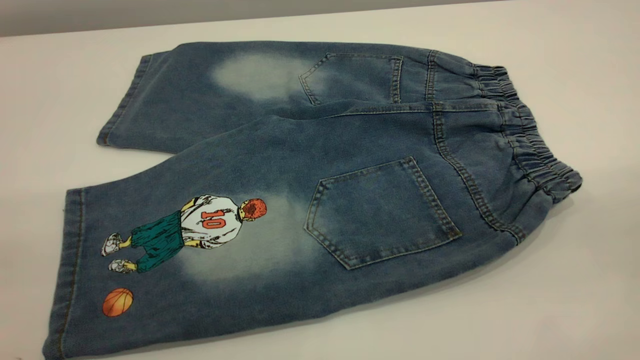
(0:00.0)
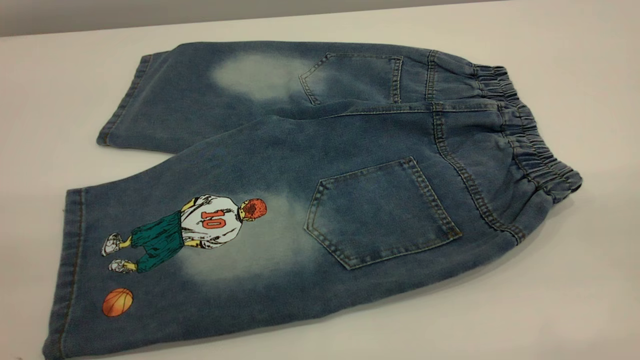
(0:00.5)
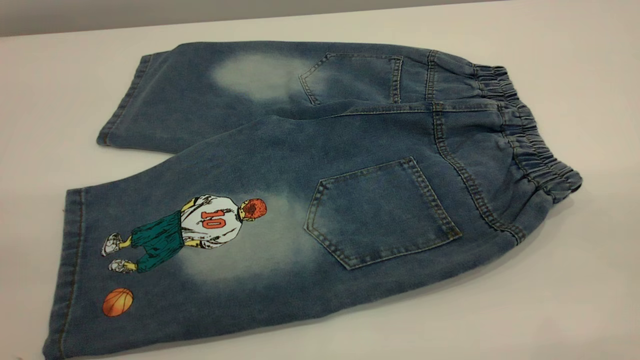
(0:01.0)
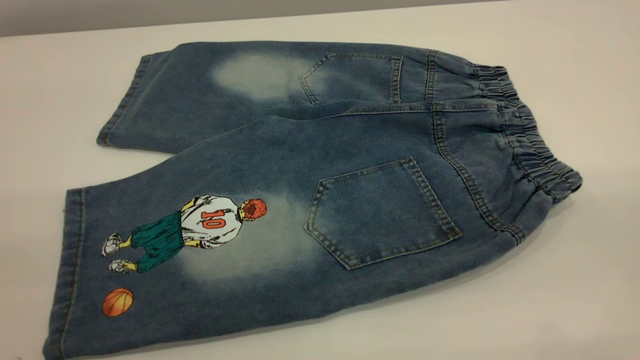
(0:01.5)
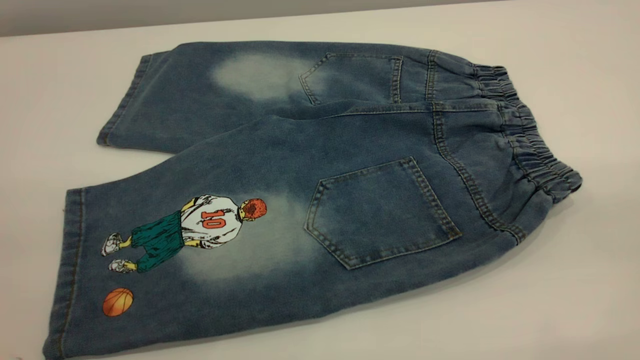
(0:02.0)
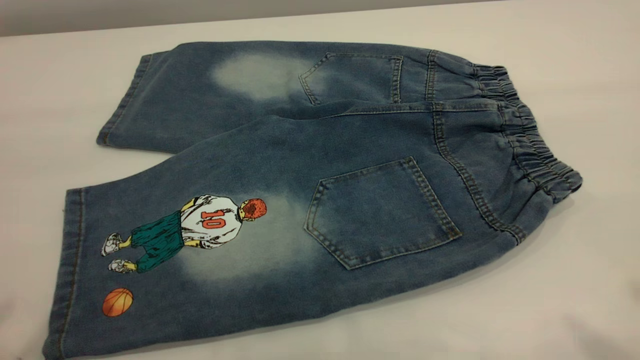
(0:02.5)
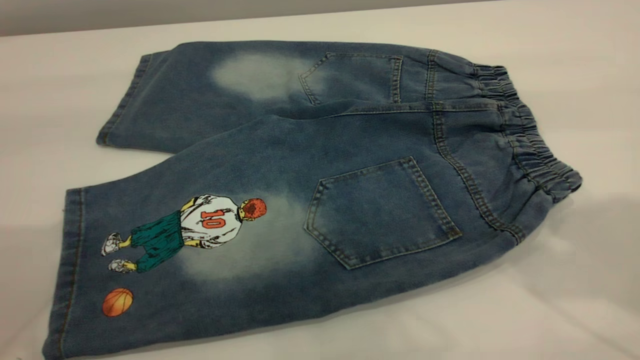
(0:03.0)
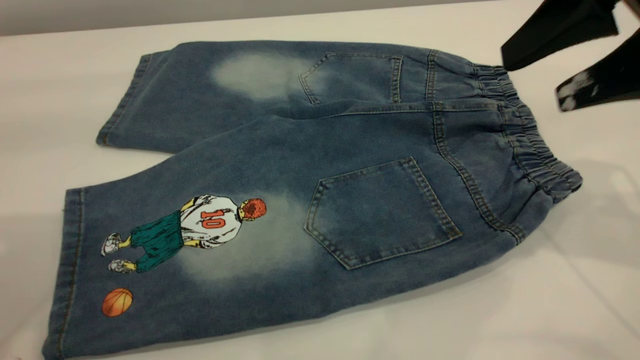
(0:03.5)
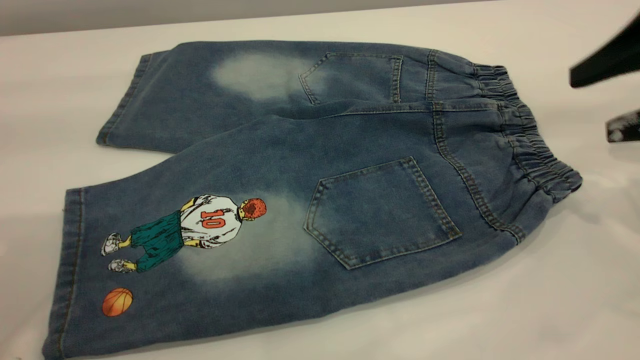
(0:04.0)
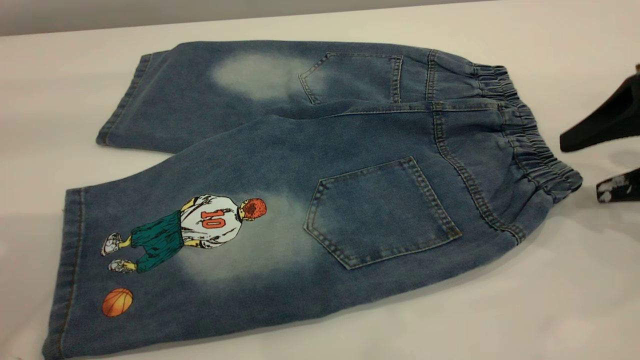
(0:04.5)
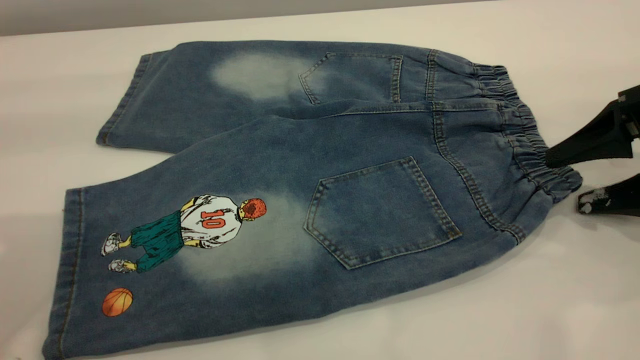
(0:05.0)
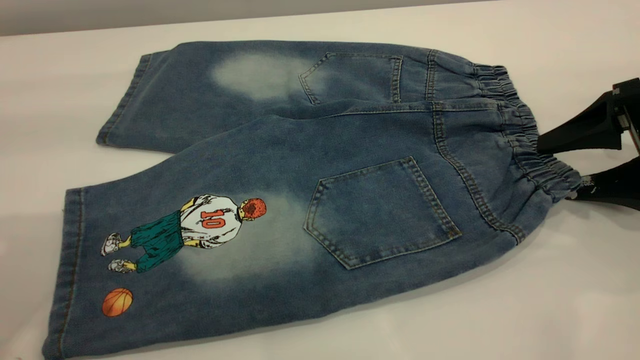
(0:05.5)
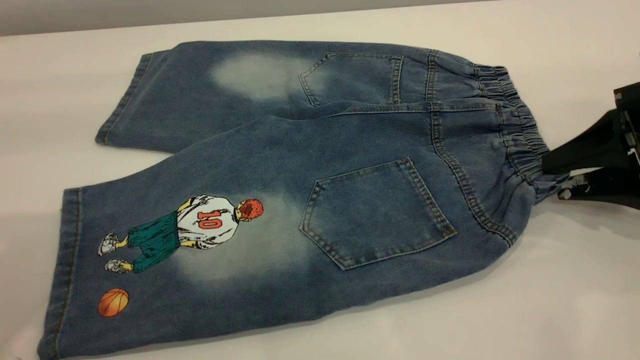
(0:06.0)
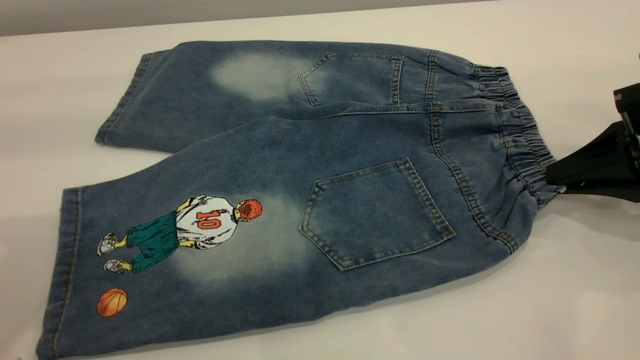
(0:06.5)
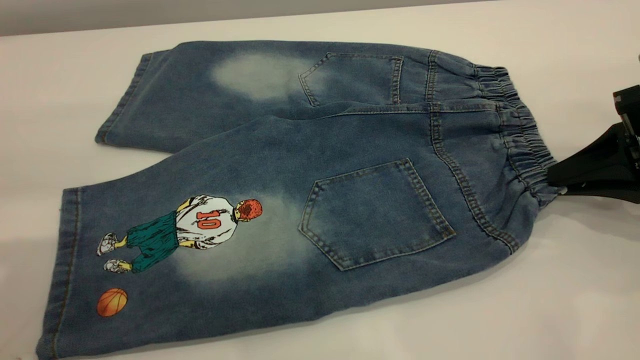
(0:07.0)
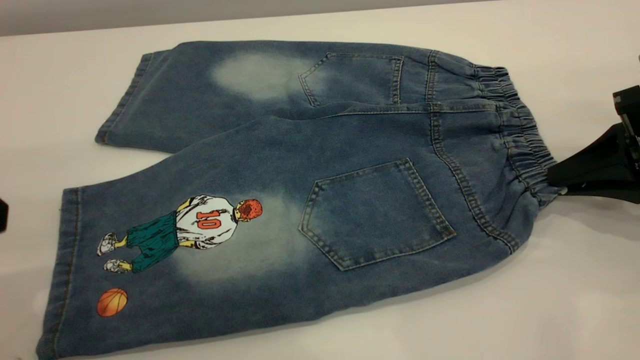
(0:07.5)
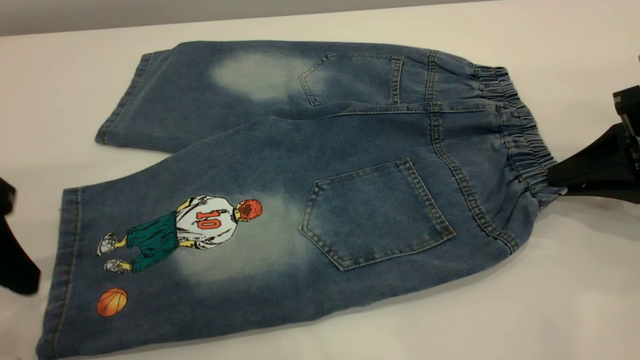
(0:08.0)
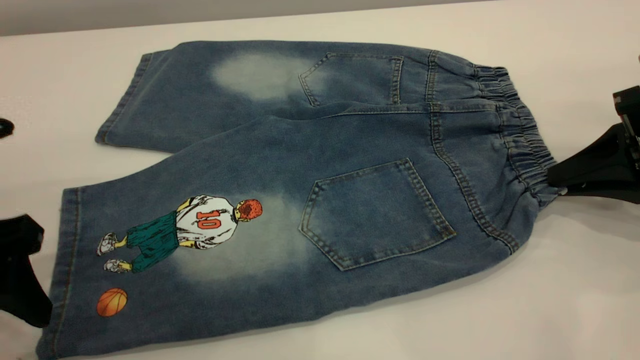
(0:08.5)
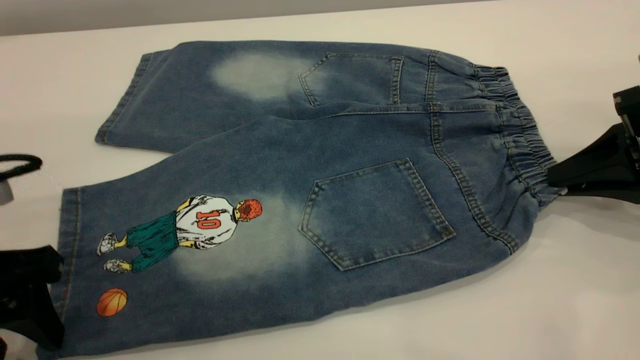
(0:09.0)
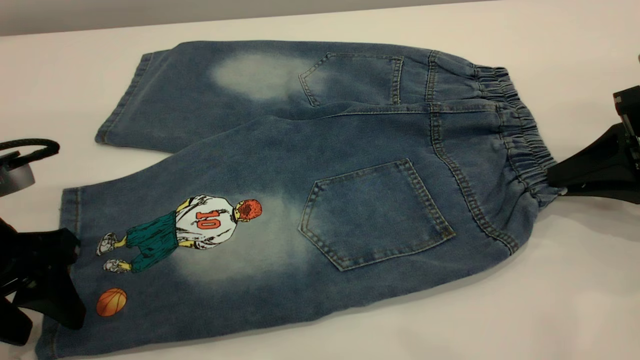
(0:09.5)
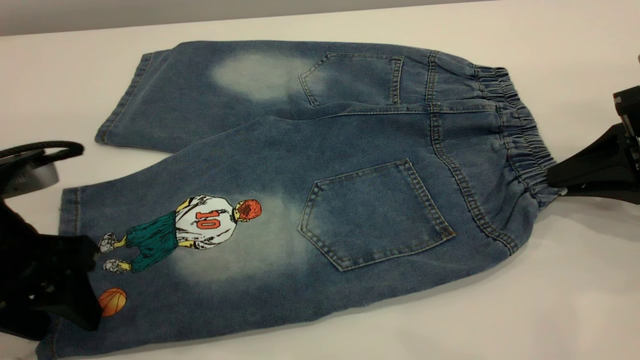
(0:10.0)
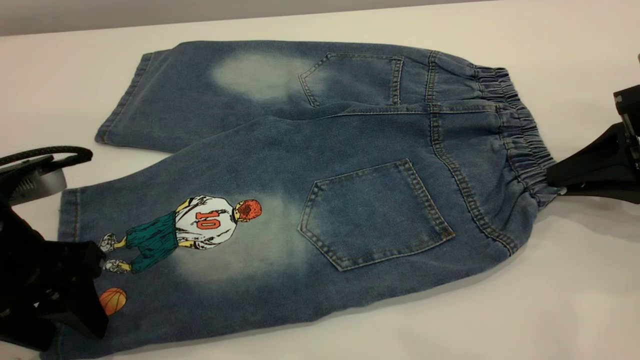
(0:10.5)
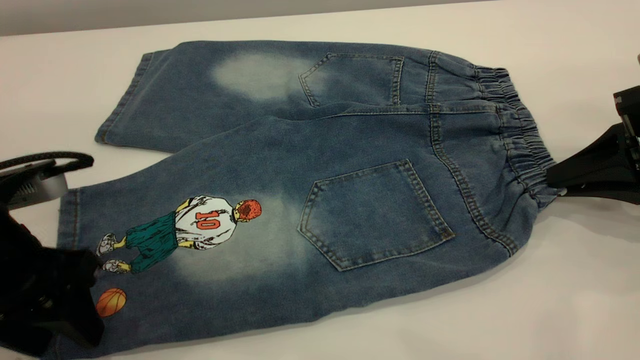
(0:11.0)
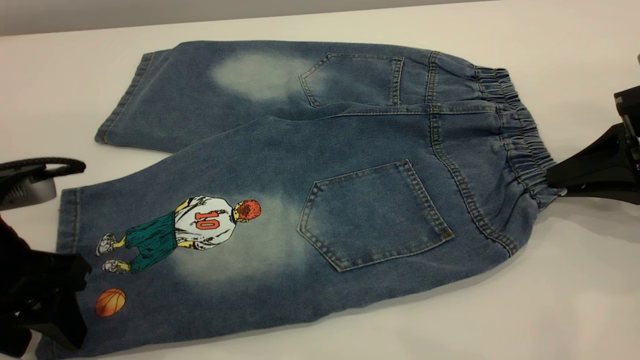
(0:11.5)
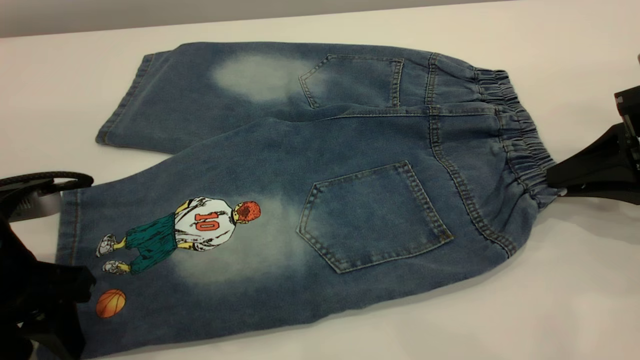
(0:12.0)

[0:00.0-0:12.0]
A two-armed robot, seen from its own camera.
0:02.0 to 0:04.0: The right gripper heads forward and downward, covering about 35 cm.
0:04.0 to 0:06.0: The right gripper shifts roughly 10 cm downward, and closes.
0:06.0 to 0:08.0: The left gripper goes some 15 cm downward. Meanwhile the right gripper closes its fingers.
0:08.0 to 0:10.0: The left gripper goes roughly 5 cm downward.
0:10.0 to 0:12.0: The grippers stay close to where they were, moving slightly.

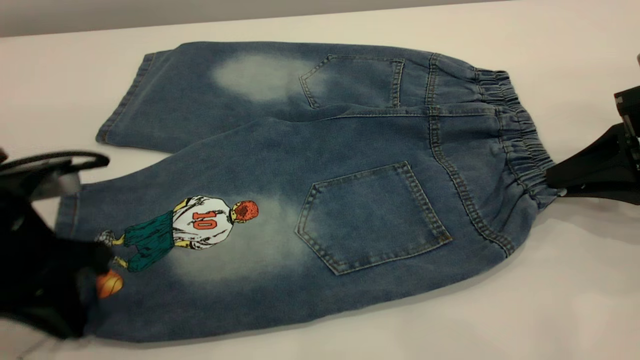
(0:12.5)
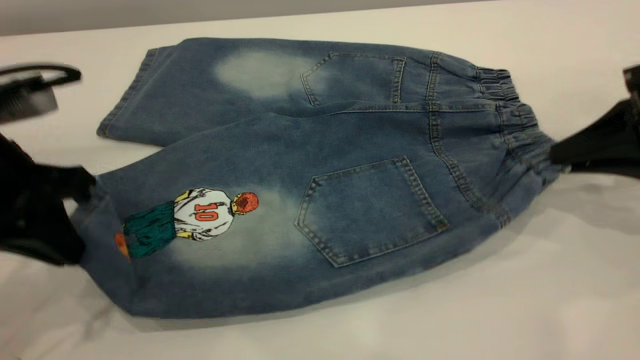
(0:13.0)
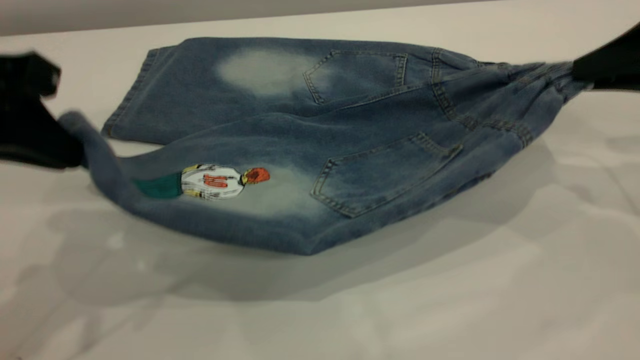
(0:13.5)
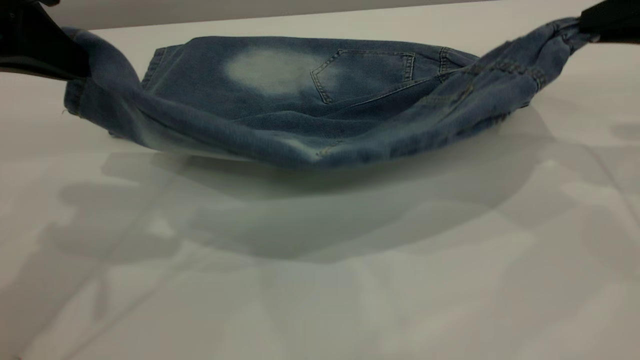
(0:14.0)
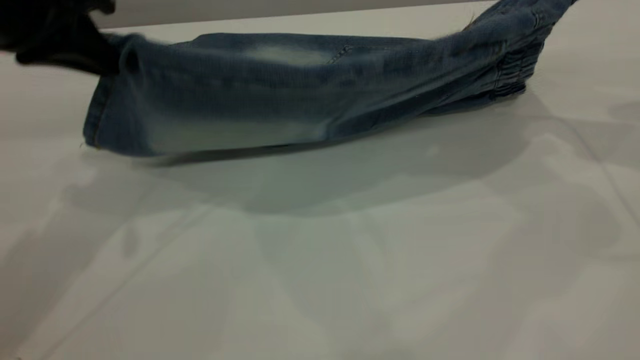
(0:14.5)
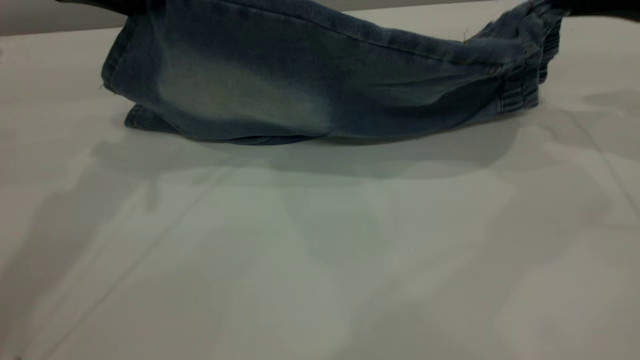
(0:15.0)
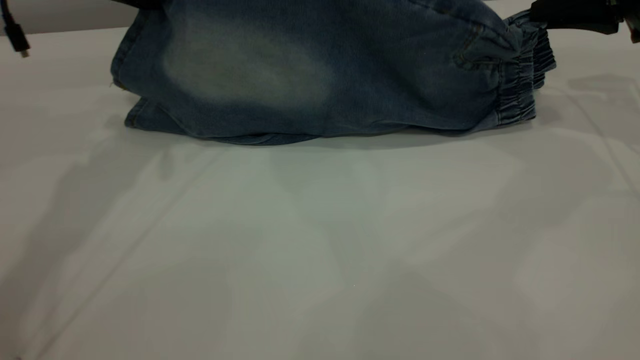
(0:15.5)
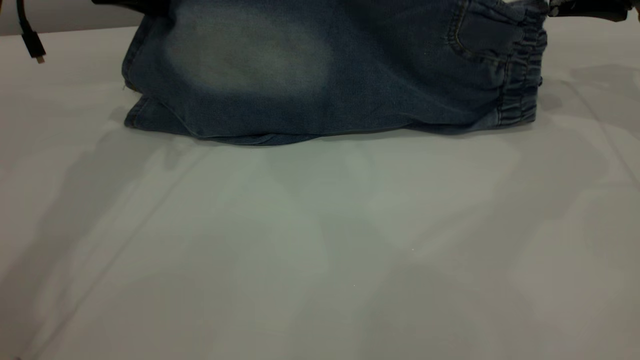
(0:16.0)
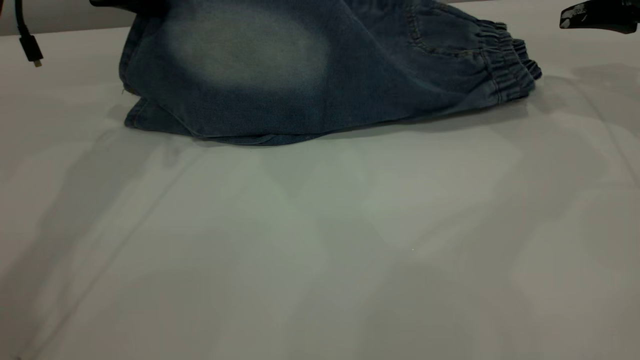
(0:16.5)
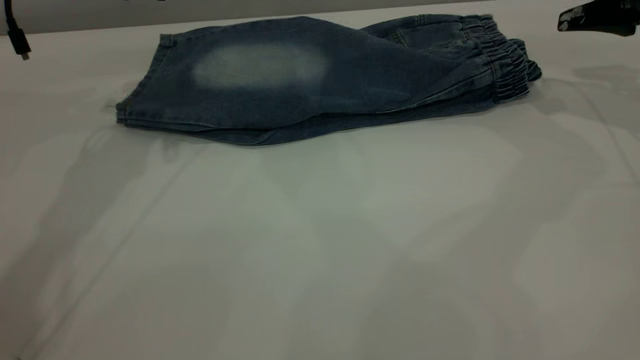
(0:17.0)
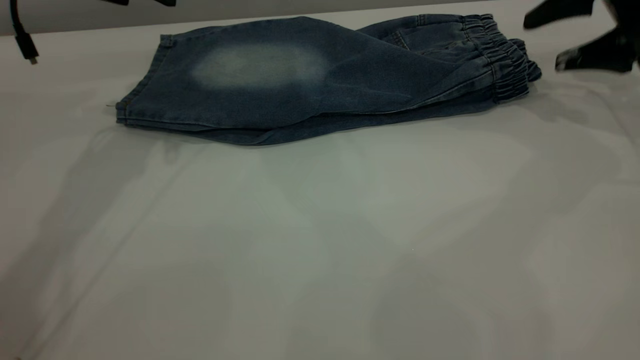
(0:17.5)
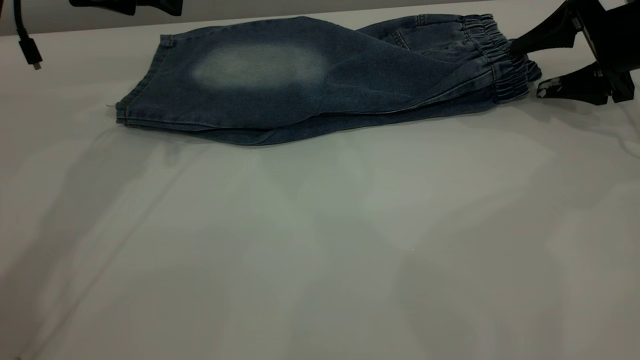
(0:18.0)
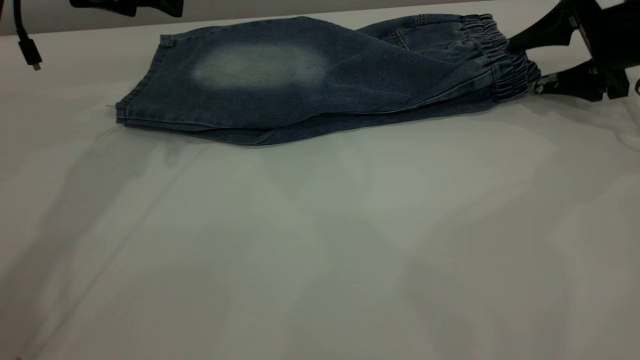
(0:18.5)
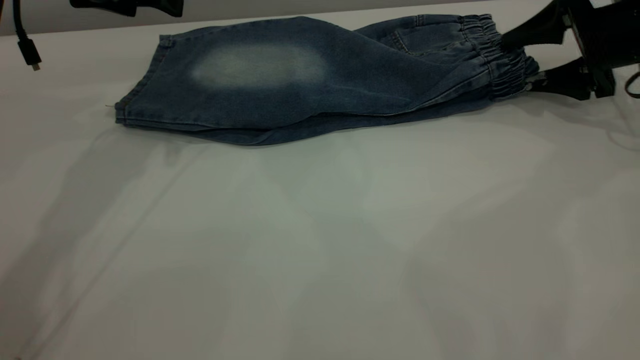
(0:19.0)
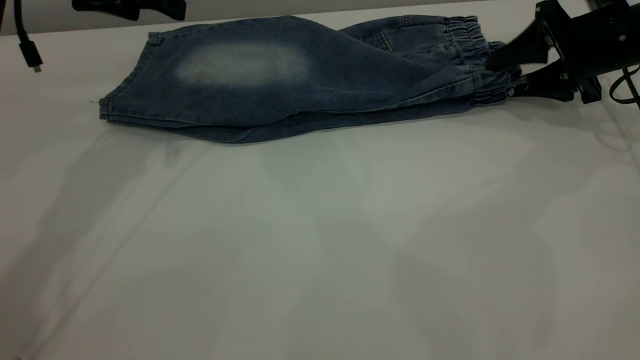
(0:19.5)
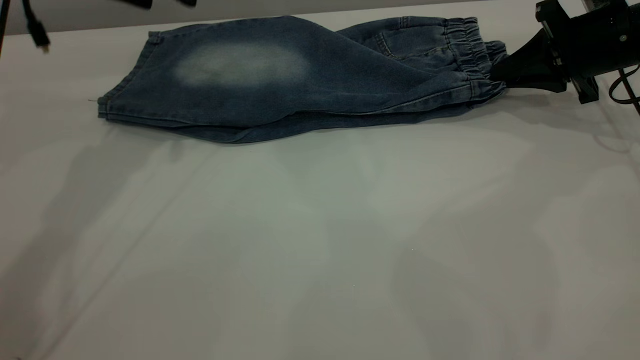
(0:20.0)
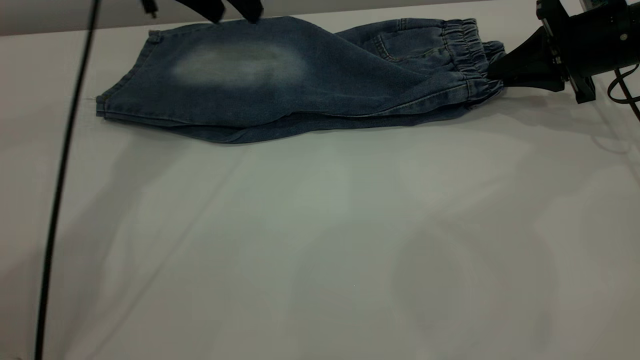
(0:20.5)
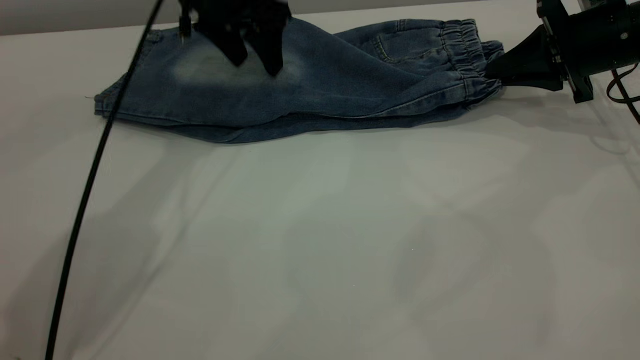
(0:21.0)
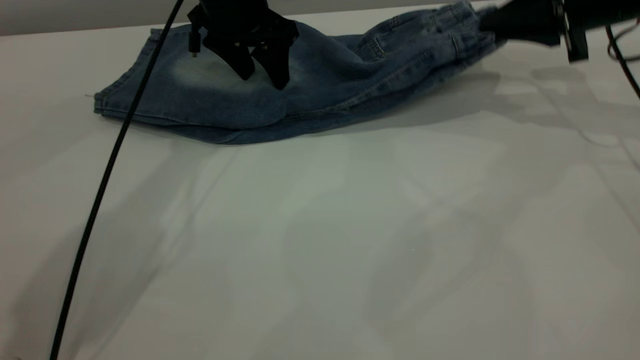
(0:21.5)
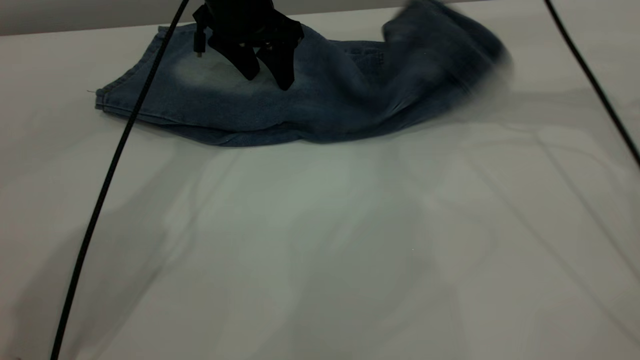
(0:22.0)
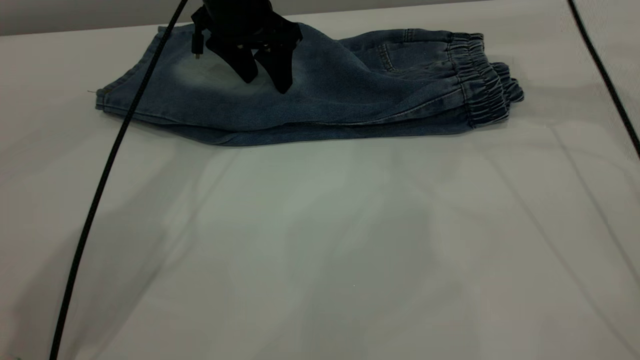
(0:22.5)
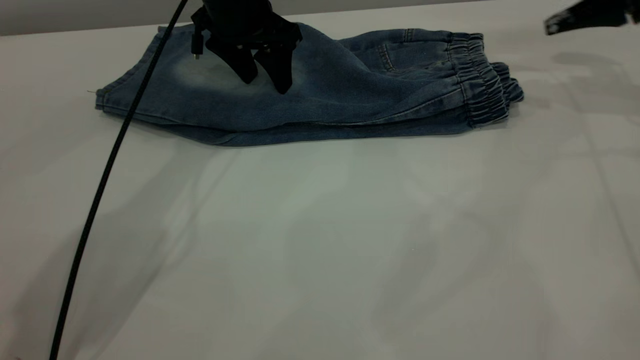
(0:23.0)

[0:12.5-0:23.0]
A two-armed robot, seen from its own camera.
Step, 0:12.5 to 0:17.0: Fold the bottom of the pants upward.
0:12.5 to 0:14.5: Both grippers travel together upward and forward, roughly 15 cm.
0:14.5 to 0:16.5: Both grippers travel together forward, about 10 cm. The right gripper opens its fingers.
0:16.5 to 0:19.0: The right gripper is displaced downward by some 10 cm; the left gripper opens up.
0:19.0 to 0:21.0: The right gripper closes up, while the left gripper heads to the right, forward and downward, covering about 15 cm.
0:21.0 to 0:23.0: The right gripper heads upward, covering some 10 cm, goes to the left and returns, some 10 cm each way, and opens.
